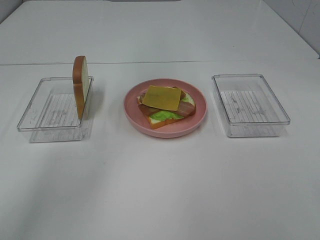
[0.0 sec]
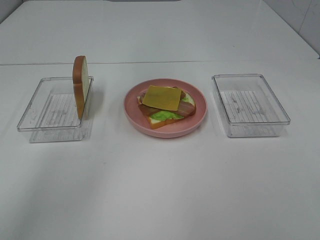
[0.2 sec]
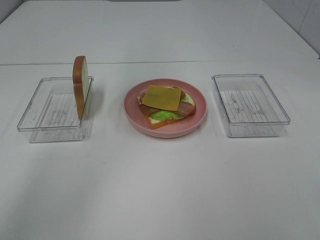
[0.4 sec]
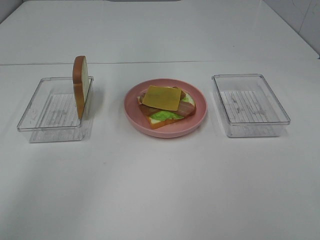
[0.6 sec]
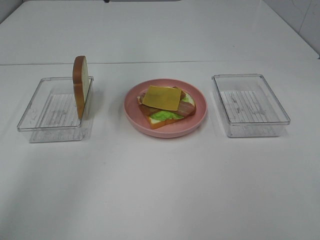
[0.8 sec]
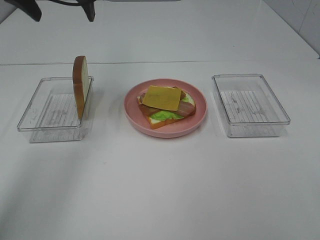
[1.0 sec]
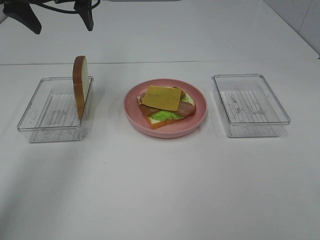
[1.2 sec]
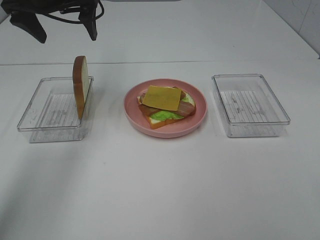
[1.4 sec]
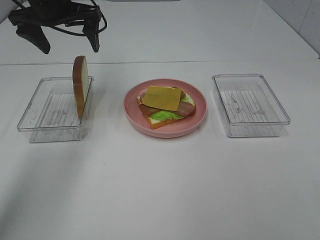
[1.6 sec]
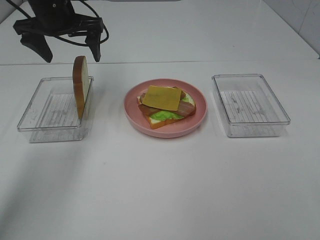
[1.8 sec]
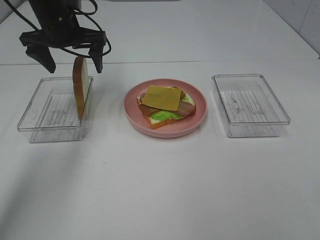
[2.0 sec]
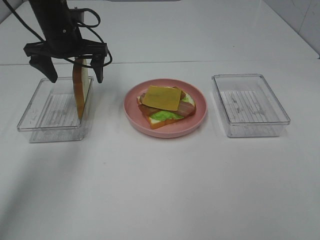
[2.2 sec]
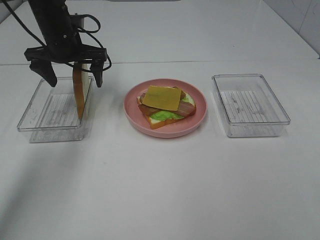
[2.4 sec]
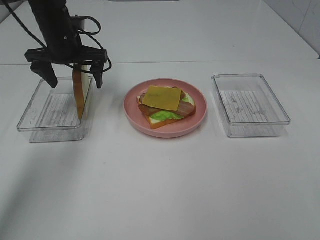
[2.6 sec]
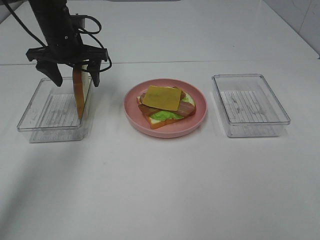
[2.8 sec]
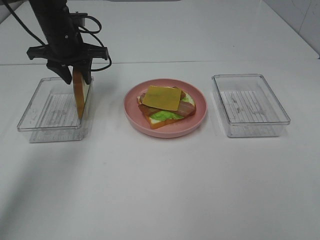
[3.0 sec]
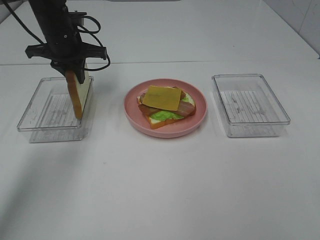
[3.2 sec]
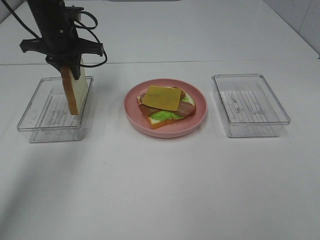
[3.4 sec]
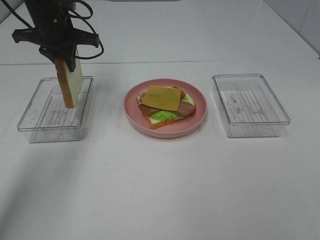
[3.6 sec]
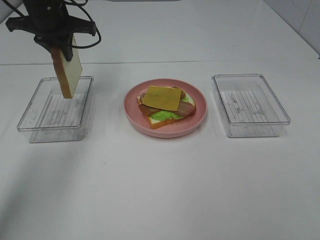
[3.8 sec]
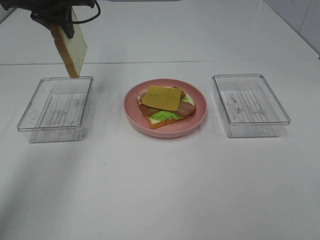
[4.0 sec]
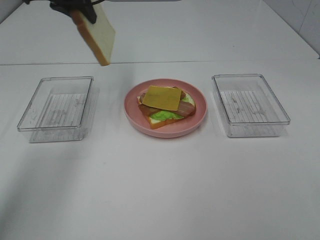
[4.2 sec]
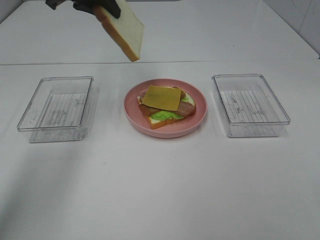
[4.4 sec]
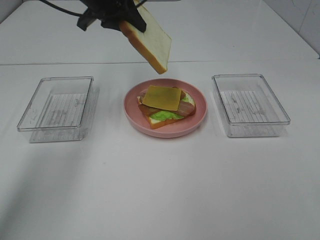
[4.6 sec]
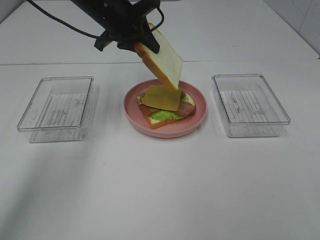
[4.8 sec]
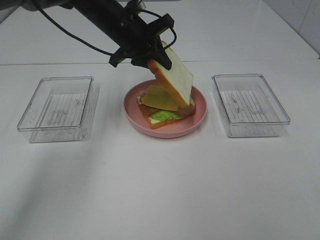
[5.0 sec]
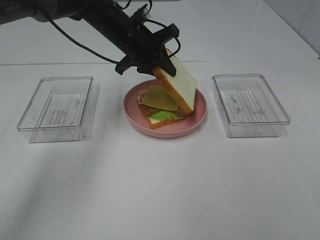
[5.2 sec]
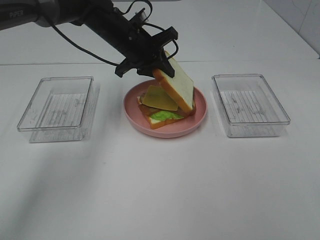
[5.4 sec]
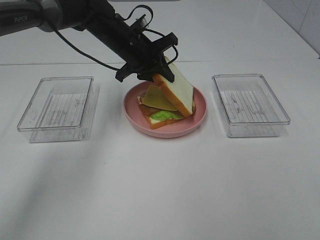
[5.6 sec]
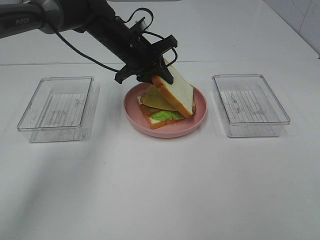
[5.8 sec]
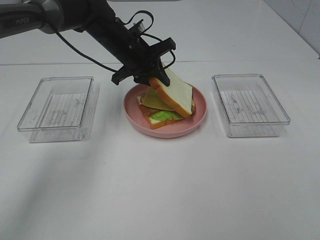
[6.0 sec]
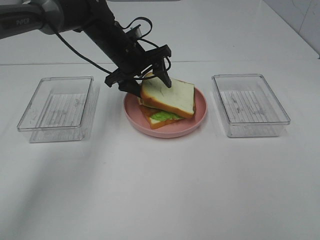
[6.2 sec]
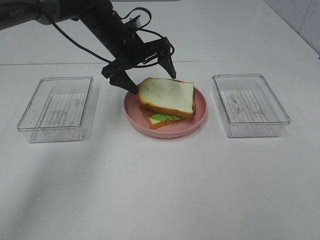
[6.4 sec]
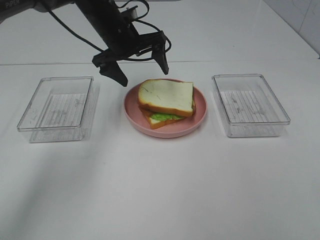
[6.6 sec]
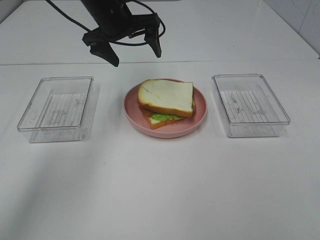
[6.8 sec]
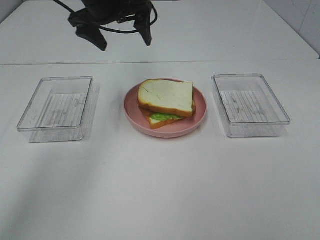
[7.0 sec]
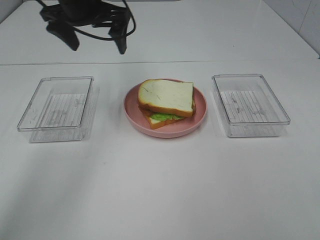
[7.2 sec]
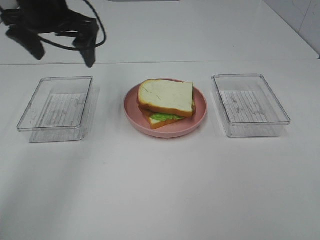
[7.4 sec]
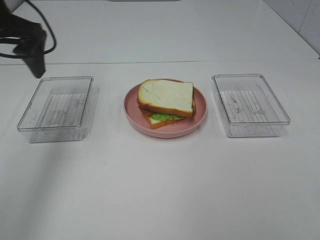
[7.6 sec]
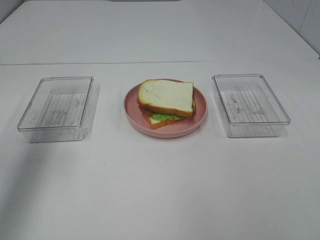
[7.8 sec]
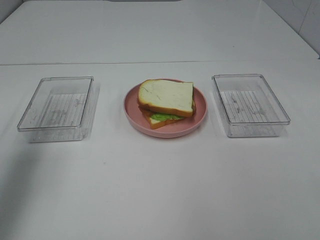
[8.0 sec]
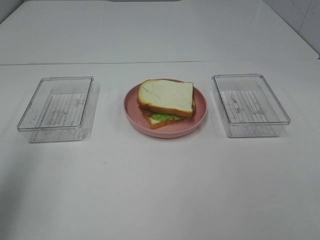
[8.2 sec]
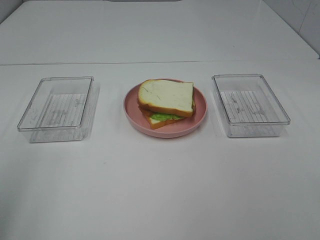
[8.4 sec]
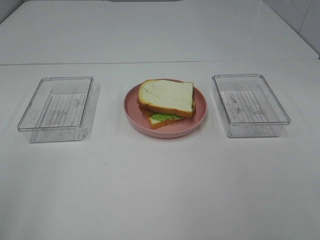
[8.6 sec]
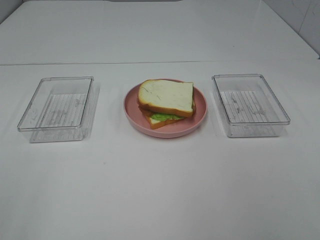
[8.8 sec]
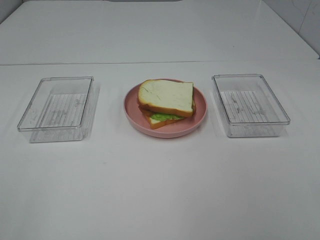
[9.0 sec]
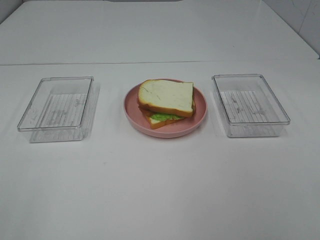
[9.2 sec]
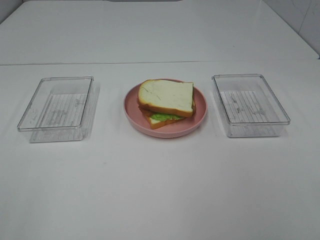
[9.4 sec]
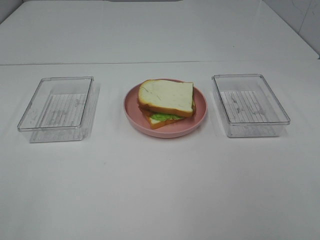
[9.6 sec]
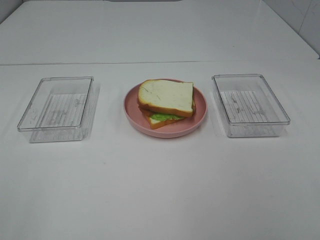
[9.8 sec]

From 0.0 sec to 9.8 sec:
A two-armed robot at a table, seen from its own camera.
Task of the whole recording: Make sandwiches.
Step, from 0.0 sec to 3.2 sec: Left hand:grab the bread slice.
Step, from 3.4 sec to 6.4 sec: Left hand:place the bread slice on the cheese slice.
From 0.0 sec to 1.4 sec: The left gripper travels to the left and downward by about 15 cm.
From 1.4 sec to 2.8 sec: The left gripper goes some 10 cm downward.
From 2.8 sec to 4.2 sec: The left gripper is displaced upward by about 15 cm, and closes up.
From 4.2 sec to 5.6 sec: The left gripper goes roughly 20 cm downward and to the right.
From 5.6 sec to 7.0 sec: The left gripper shifts roughly 10 cm upward, and opens its fingers.
From 7.0 sec to 8.4 sec: The left gripper moves backward and to the left, some 40 cm.

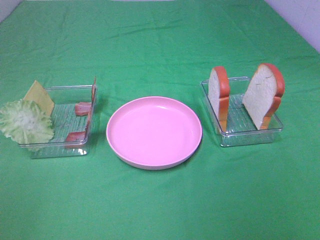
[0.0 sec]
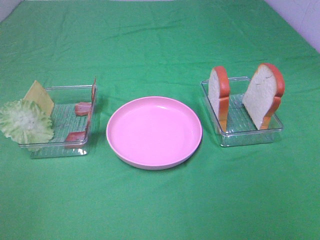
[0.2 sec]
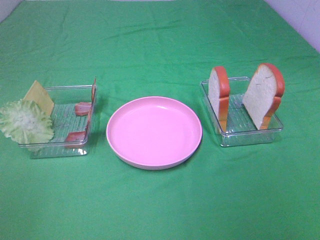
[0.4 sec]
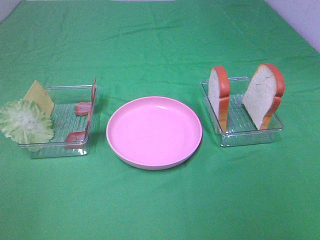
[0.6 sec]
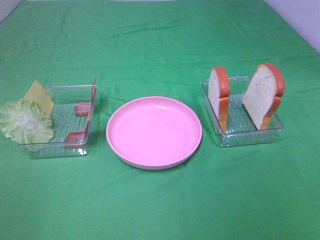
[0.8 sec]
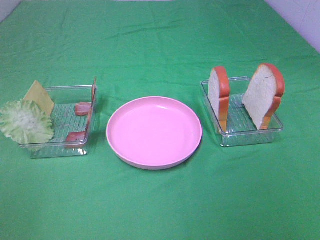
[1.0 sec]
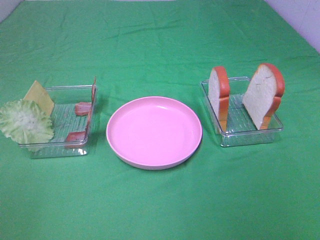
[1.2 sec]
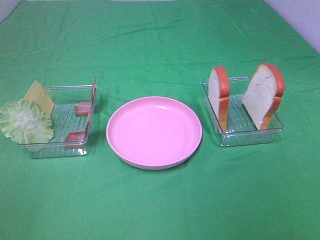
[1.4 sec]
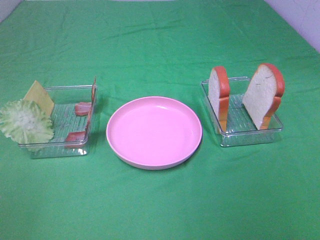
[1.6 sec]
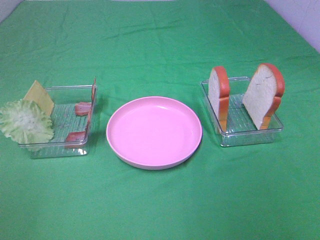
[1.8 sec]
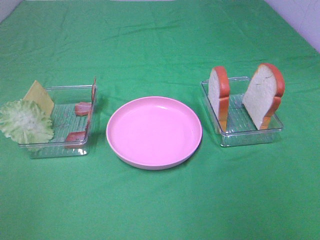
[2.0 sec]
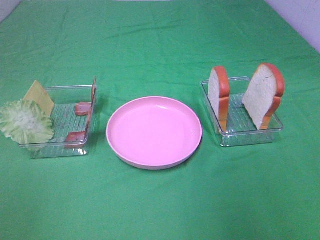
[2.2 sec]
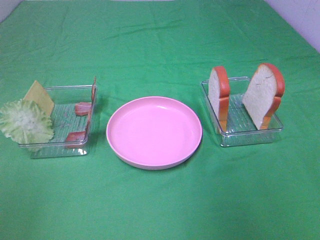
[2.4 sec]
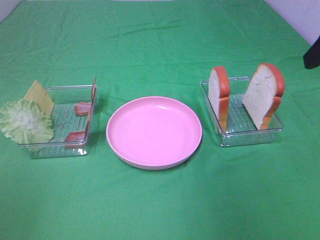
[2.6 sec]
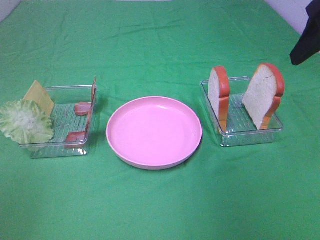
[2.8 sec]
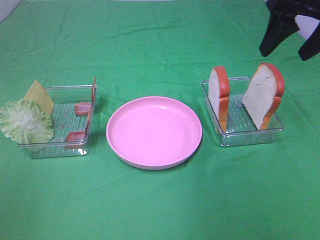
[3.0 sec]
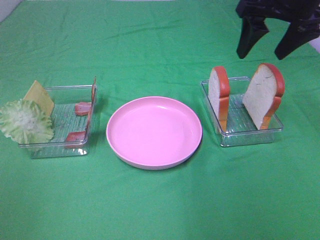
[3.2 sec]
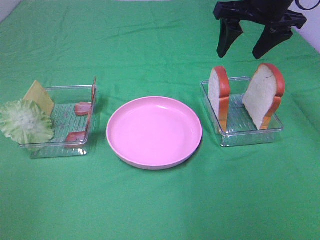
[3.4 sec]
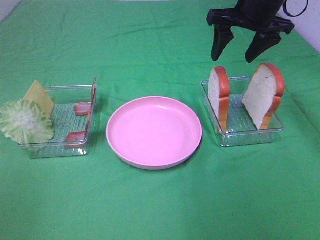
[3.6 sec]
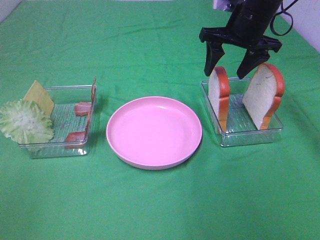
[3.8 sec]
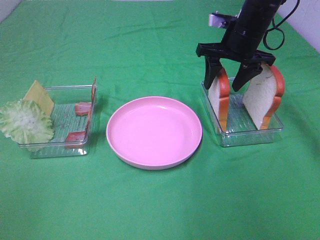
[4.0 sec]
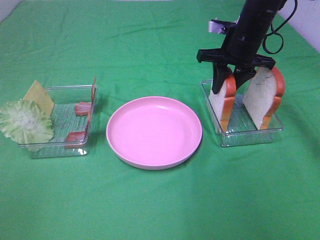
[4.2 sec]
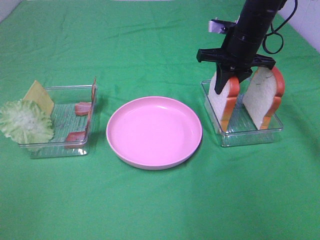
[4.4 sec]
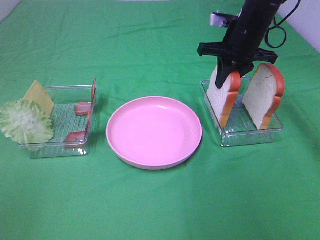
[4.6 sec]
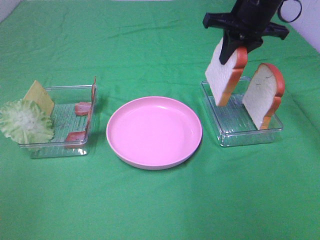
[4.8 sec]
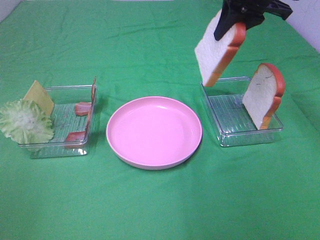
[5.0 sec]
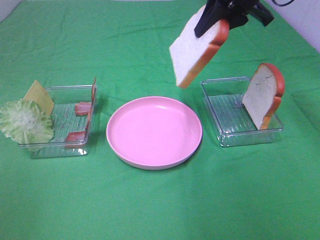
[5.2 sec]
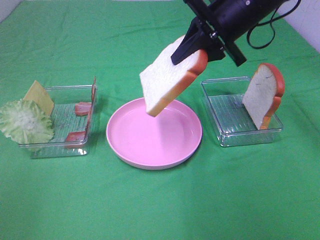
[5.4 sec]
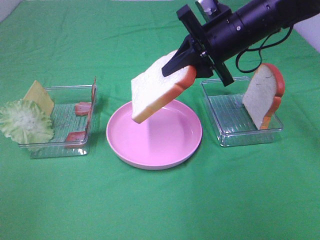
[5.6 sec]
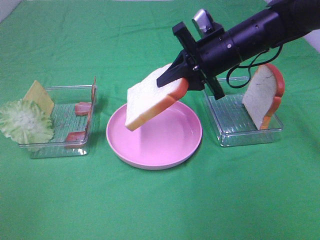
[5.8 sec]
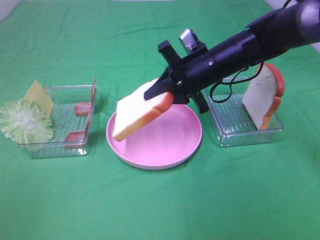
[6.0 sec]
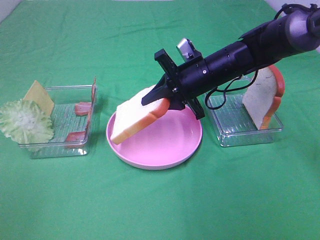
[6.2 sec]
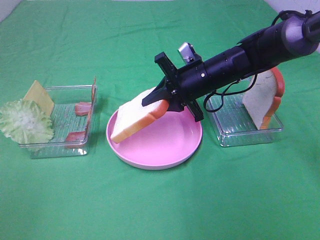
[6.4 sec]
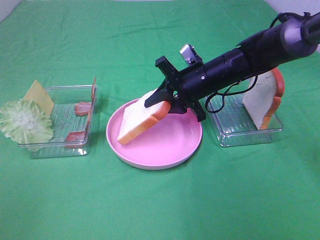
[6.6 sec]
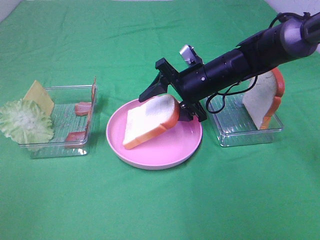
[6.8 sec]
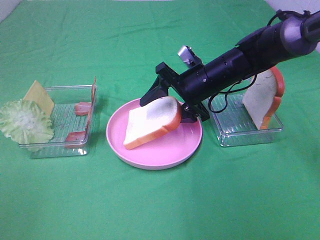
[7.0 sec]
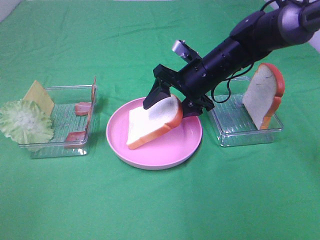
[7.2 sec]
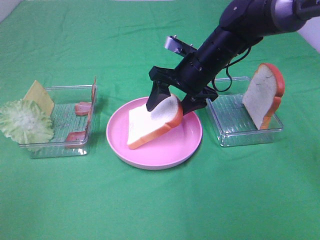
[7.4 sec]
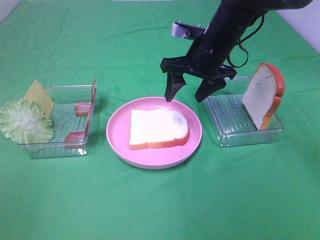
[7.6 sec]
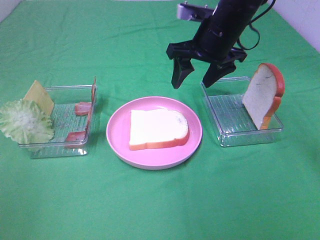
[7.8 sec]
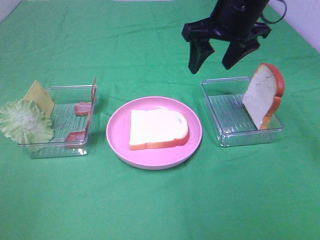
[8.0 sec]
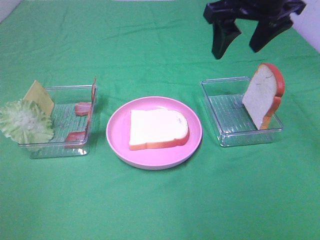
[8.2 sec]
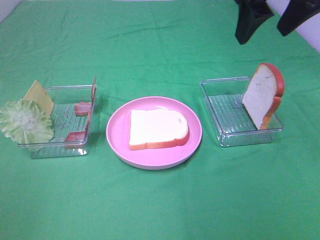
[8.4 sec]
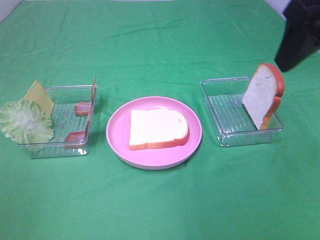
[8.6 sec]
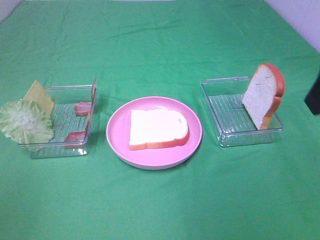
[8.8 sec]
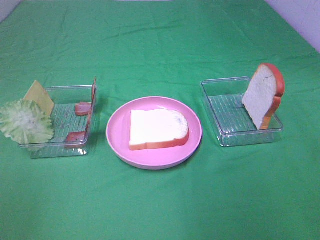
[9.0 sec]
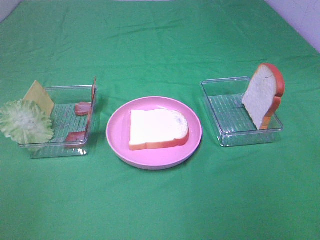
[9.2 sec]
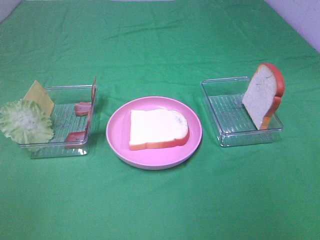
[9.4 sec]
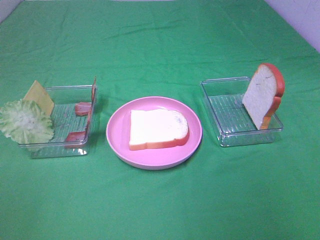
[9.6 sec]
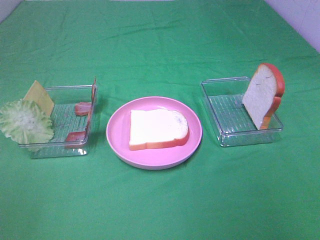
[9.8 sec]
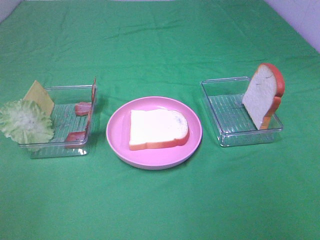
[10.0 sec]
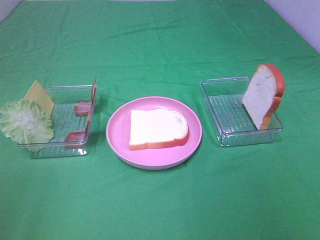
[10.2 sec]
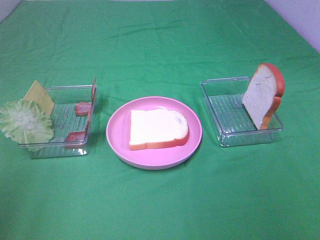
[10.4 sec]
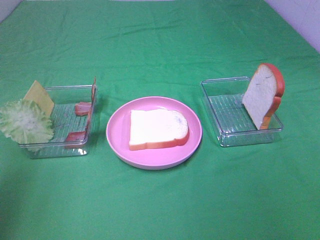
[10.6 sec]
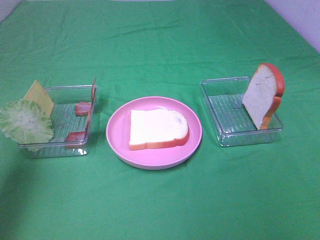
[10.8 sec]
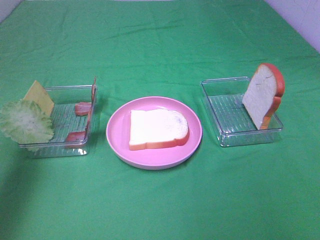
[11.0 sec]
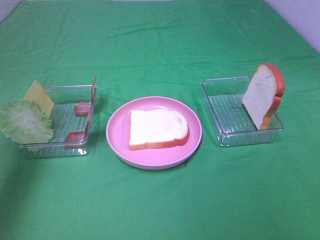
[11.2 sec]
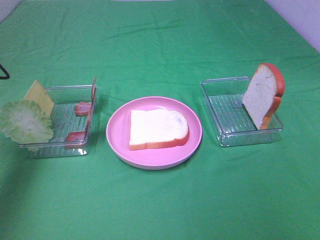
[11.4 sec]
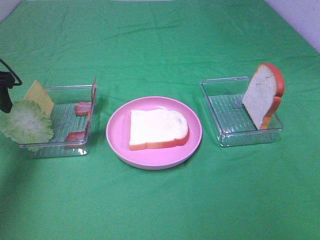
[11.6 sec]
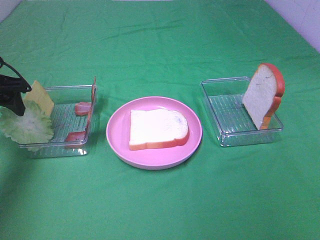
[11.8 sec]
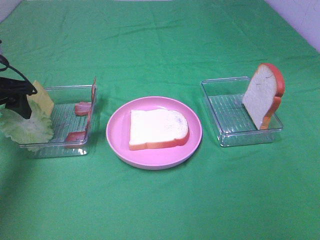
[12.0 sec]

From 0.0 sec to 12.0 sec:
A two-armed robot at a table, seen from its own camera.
Task of the whole recording: Make sandwiches.
Step, from 0.0 sec to 4.2 sec: Right hand:grab the bread slice.
Step, from 4.4 sec to 7.6 sec: Right hand:place the bread slice on the plate.
From 0.0 sec to 1.6 sec: Both grippers stay about where they are.
From 1.6 sec to 3.0 sec: The right gripper goes roughly 35 cm forward.
From 3.0 sec to 4.4 sec: The right gripper moves downward, forward and to the left, approximately 20 cm, and closes its fingers.
From 4.4 sec to 6.0 sec: The right gripper goes about 10 cm backward and to the left, and moves roughly 10 cm upward and comes back.
From 6.0 sec to 7.6 sec: The right gripper opens.
From 7.6 sec to 9.0 sec: The right gripper is displaced backward, to the right and upward by approximately 35 cm.
From 10.4 sec to 12.0 sec: The left gripper travels forward and downward by roughly 30 cm.
